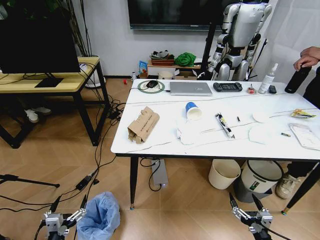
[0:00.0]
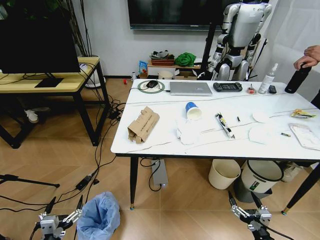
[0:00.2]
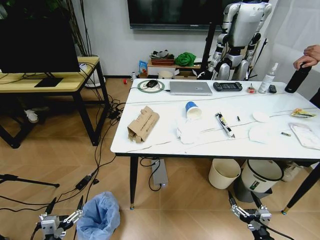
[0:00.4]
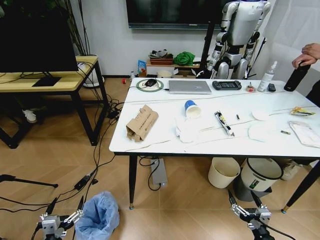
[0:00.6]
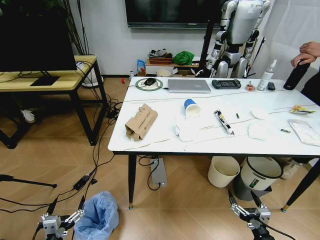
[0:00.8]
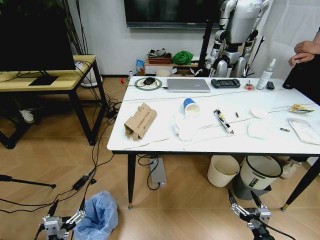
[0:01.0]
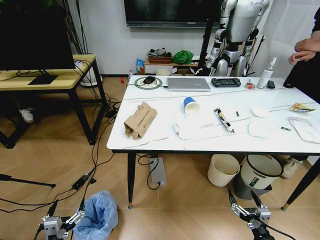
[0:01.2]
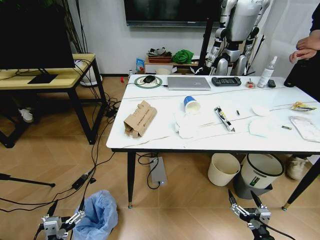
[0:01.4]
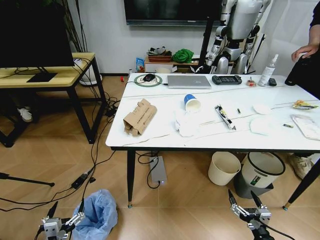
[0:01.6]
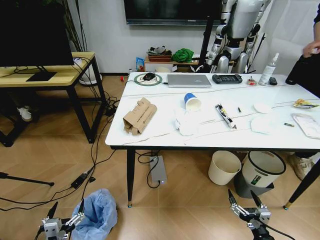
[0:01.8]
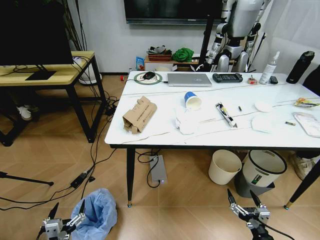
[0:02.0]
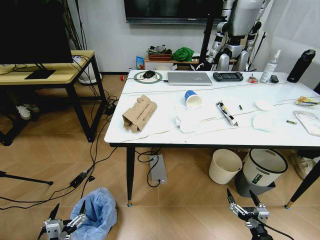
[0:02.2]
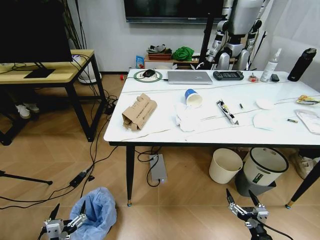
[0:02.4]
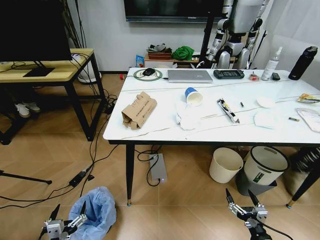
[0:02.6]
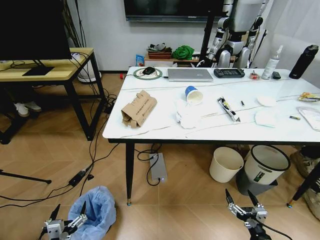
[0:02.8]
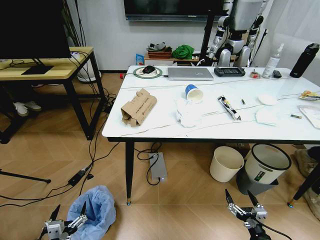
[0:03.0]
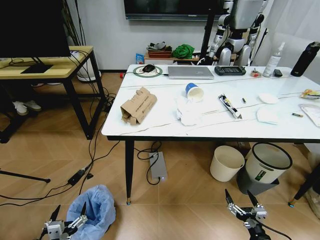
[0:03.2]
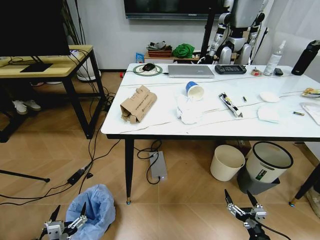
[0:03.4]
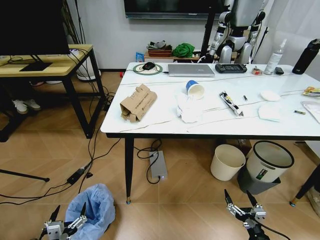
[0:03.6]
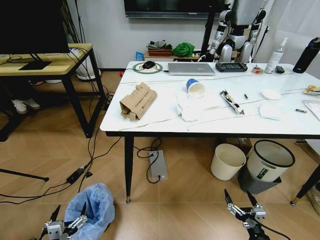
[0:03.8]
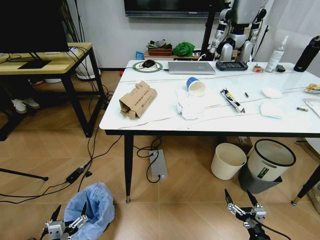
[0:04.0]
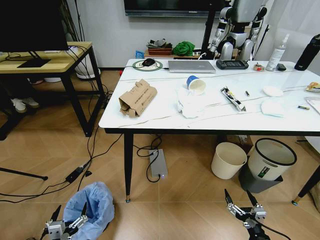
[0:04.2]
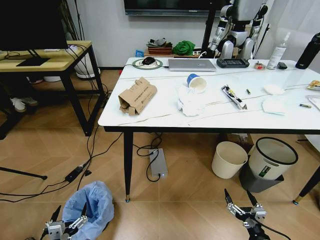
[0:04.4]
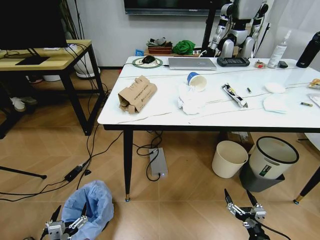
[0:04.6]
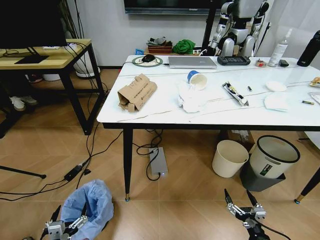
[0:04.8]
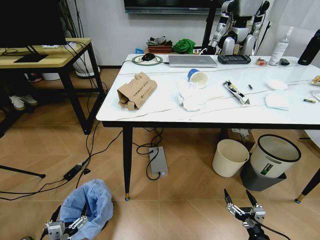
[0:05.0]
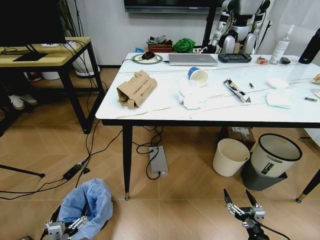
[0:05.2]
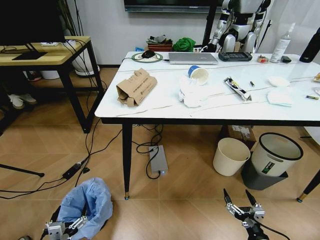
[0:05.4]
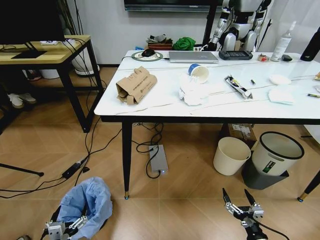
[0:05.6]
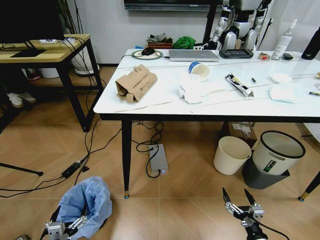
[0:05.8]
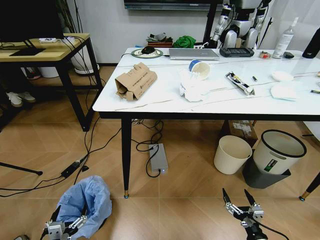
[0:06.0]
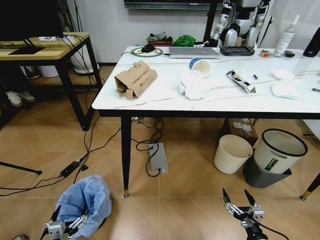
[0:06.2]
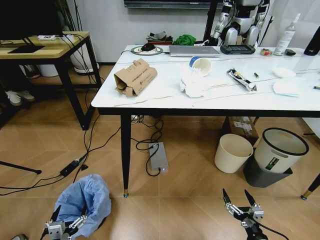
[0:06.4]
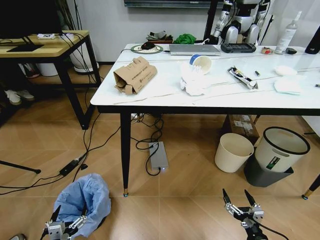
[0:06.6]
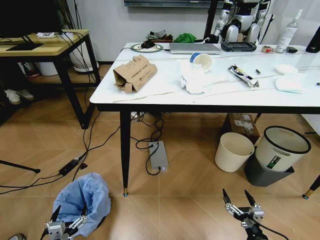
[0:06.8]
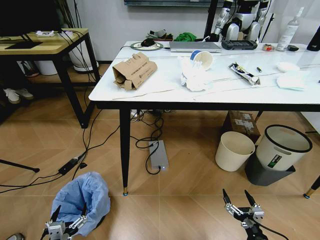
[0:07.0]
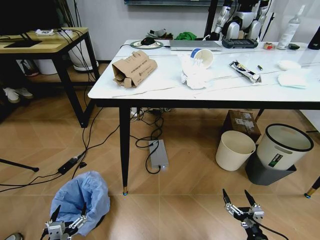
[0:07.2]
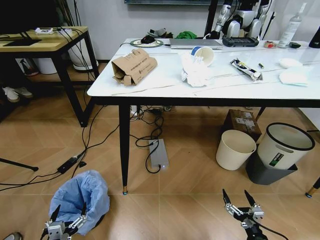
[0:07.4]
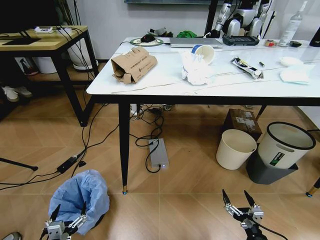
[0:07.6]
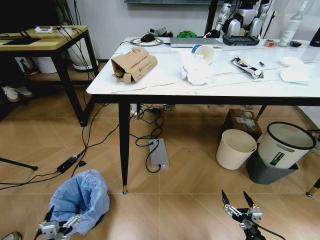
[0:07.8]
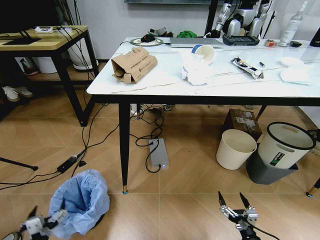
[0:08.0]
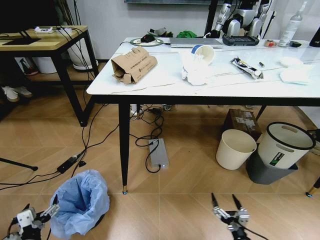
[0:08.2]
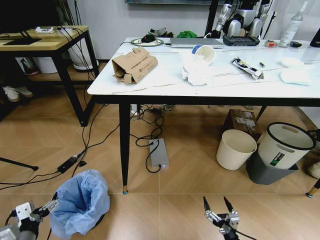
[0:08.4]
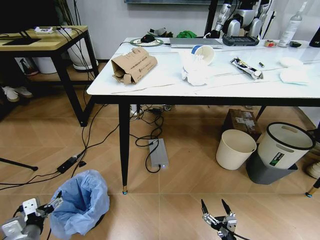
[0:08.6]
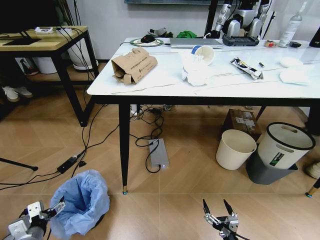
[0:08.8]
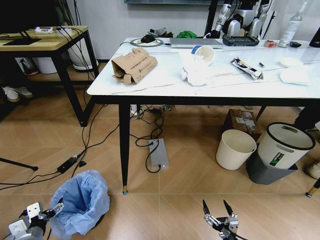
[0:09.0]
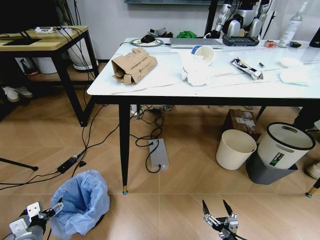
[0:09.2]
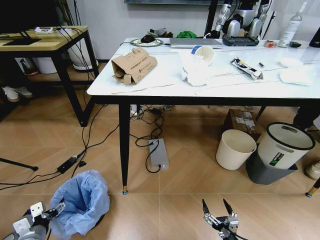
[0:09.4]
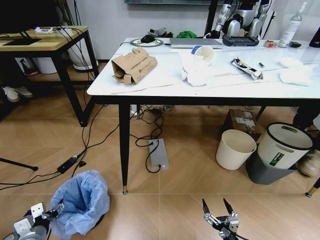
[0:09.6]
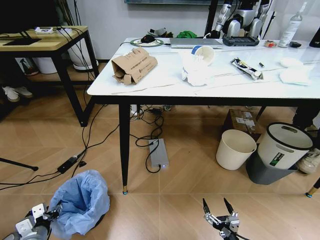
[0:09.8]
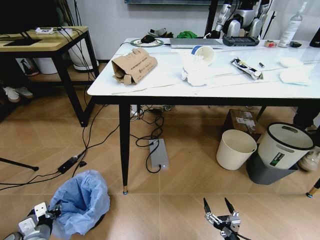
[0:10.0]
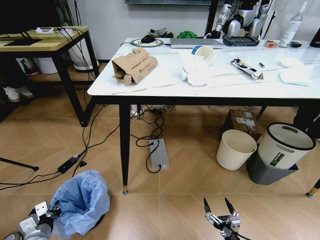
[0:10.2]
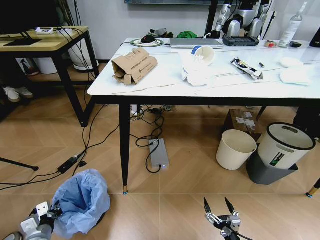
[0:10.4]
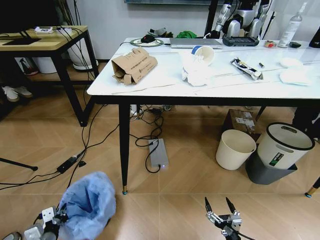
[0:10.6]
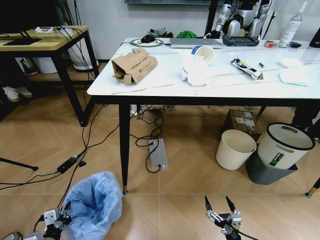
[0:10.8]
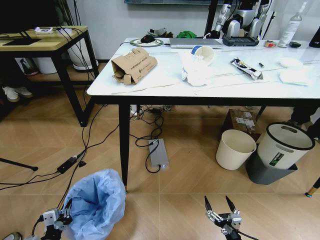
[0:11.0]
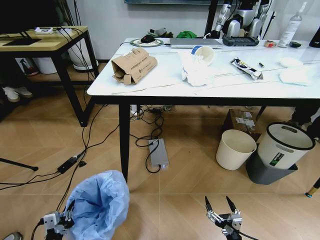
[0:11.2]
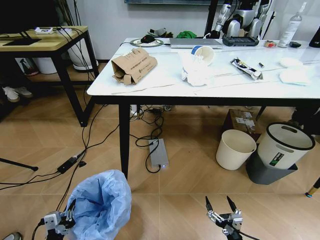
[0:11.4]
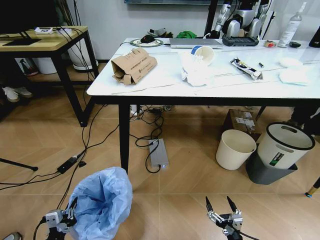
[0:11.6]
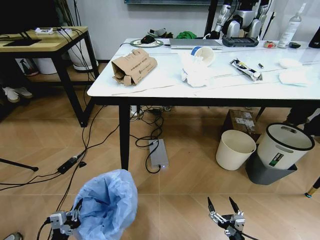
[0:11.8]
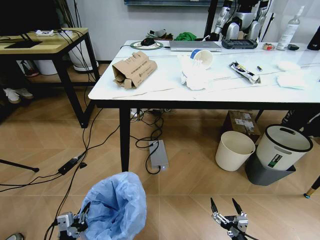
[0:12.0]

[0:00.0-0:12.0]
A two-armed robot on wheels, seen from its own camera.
Task of the whole recording: Pick up the trash bin and place the trash from the table into it.
0:07.6 to 0:09.0: The right gripper moves to the left and downward, approximately 10 cm; the left gripper is displaced forward and to the left by approximately 15 cm.
0:09.0 to 0:10.4: The left gripper closes its fingers.
0:10.4 to 0:12.0: The left gripper is displaced to the right, backward and upward by approximately 15 cm.

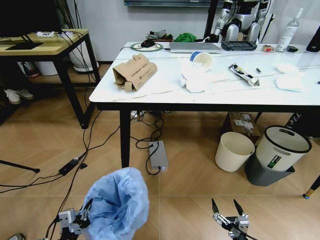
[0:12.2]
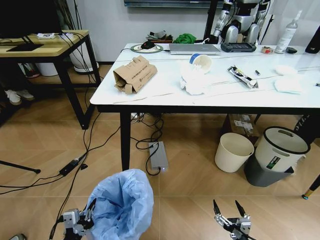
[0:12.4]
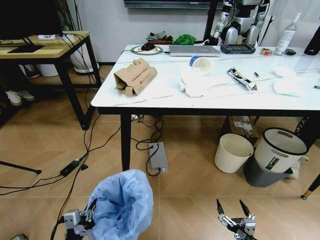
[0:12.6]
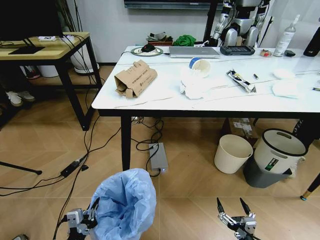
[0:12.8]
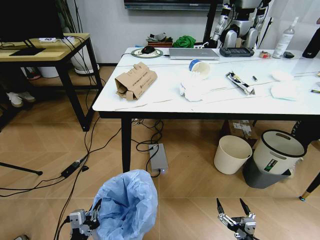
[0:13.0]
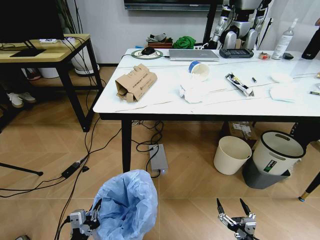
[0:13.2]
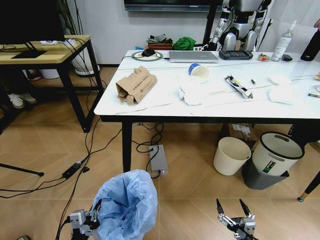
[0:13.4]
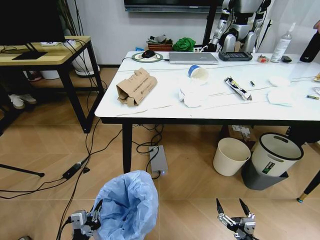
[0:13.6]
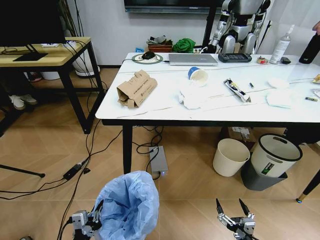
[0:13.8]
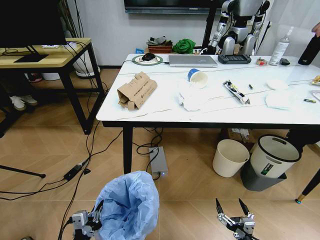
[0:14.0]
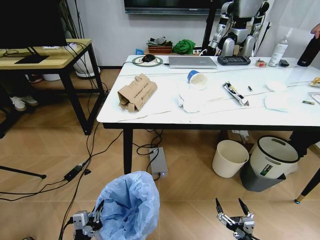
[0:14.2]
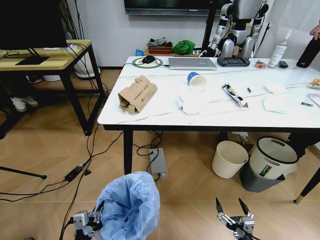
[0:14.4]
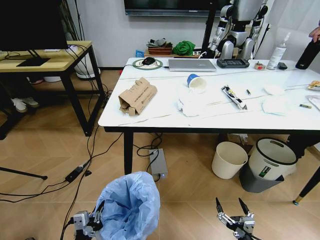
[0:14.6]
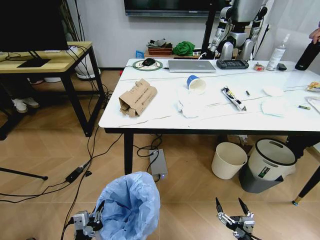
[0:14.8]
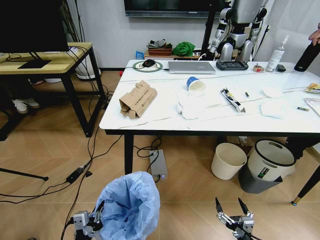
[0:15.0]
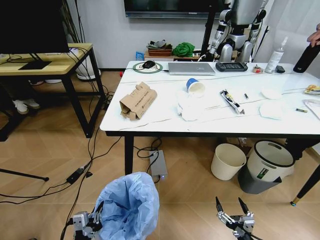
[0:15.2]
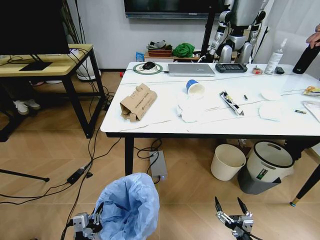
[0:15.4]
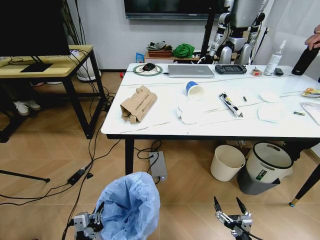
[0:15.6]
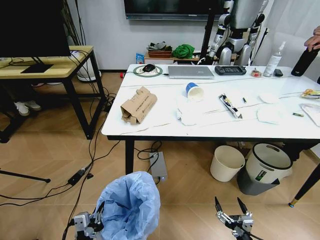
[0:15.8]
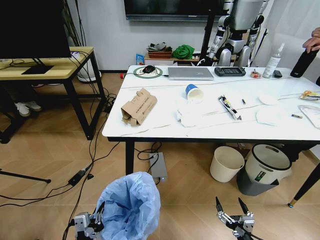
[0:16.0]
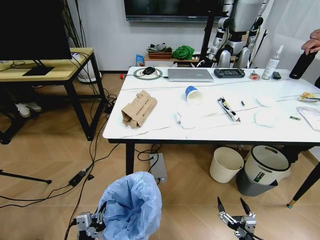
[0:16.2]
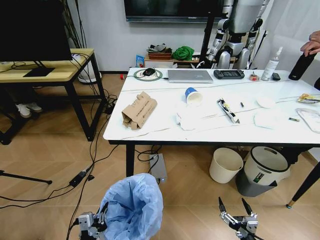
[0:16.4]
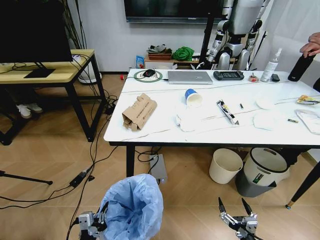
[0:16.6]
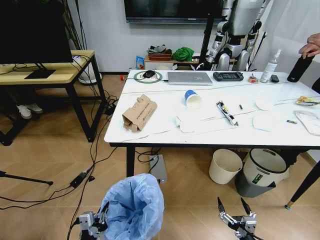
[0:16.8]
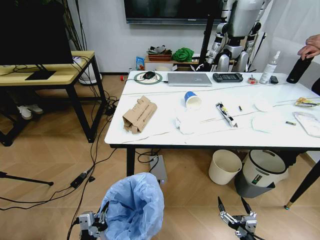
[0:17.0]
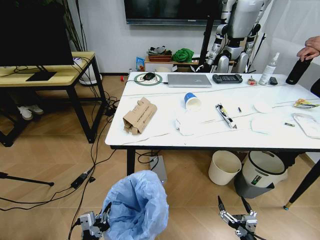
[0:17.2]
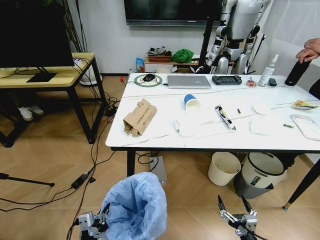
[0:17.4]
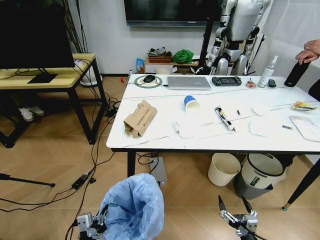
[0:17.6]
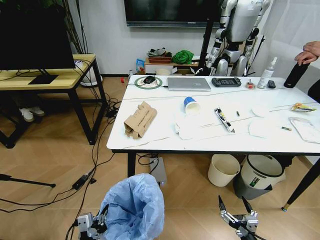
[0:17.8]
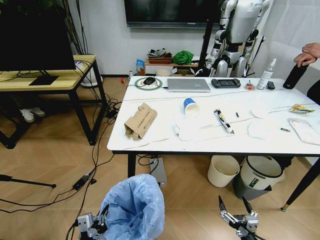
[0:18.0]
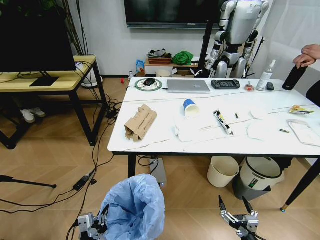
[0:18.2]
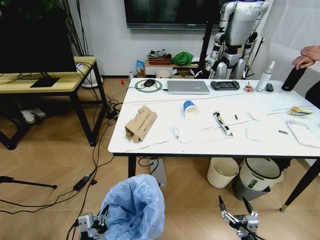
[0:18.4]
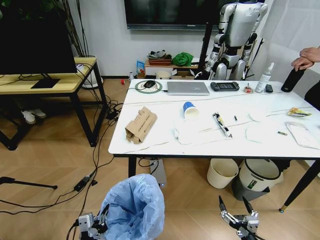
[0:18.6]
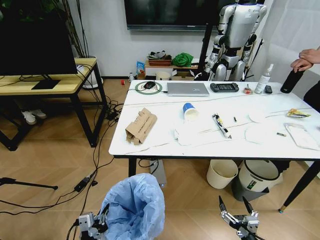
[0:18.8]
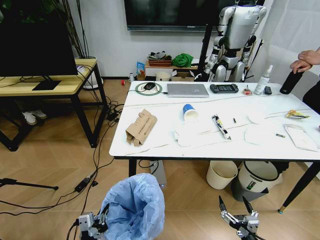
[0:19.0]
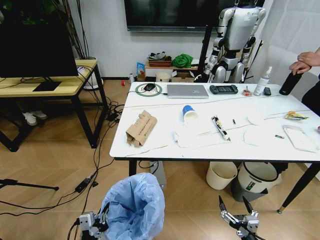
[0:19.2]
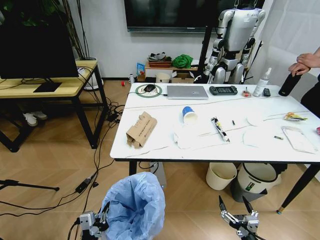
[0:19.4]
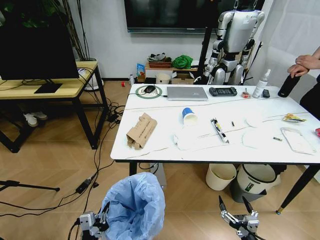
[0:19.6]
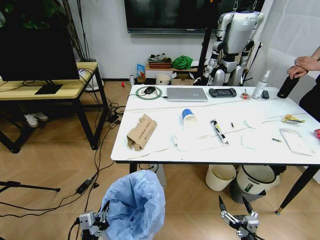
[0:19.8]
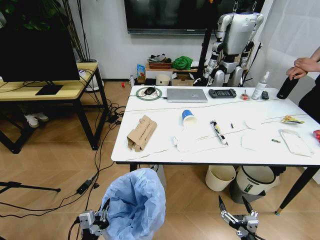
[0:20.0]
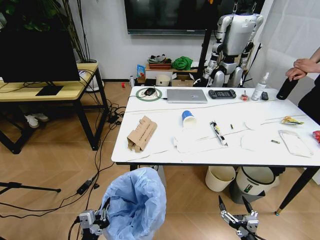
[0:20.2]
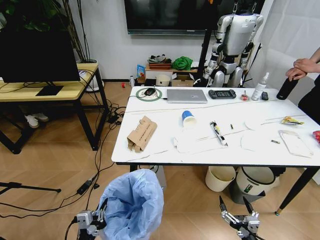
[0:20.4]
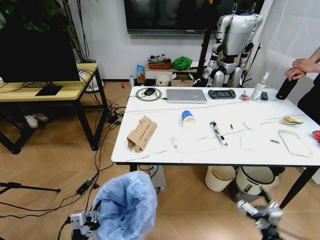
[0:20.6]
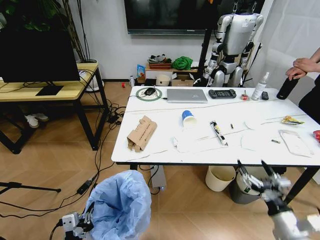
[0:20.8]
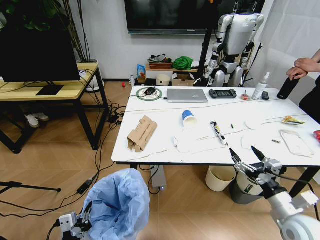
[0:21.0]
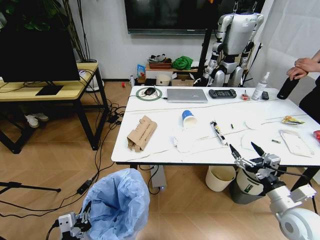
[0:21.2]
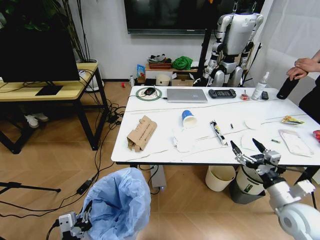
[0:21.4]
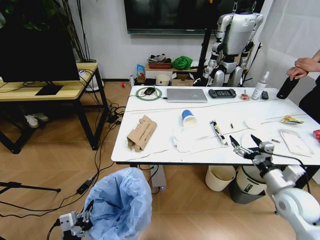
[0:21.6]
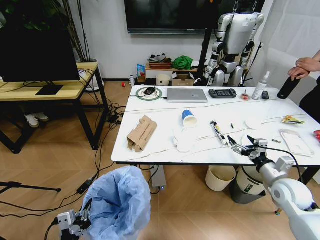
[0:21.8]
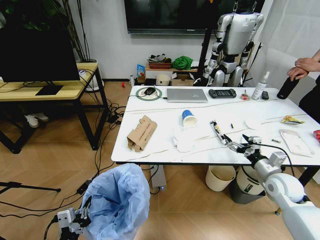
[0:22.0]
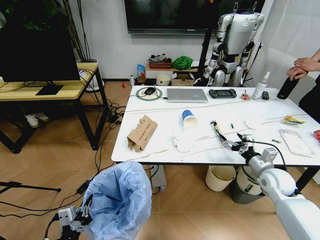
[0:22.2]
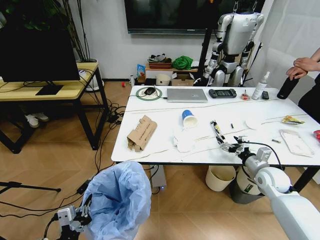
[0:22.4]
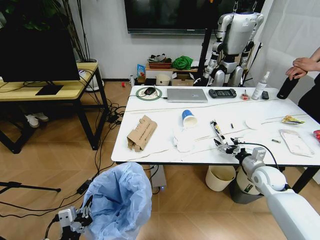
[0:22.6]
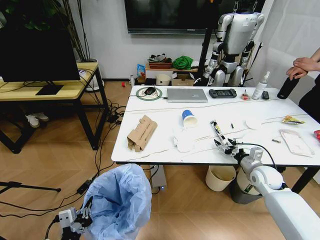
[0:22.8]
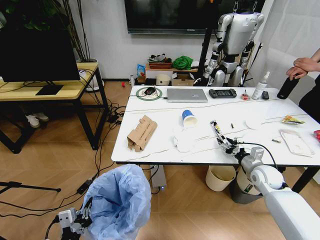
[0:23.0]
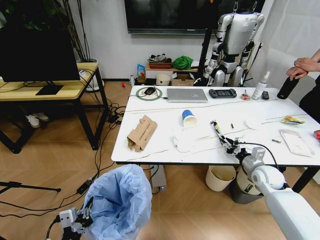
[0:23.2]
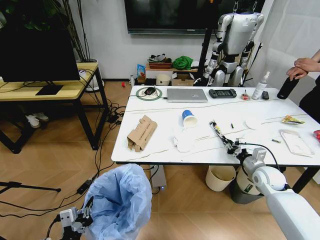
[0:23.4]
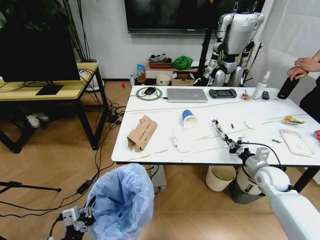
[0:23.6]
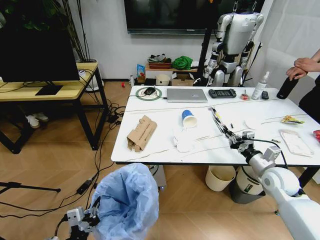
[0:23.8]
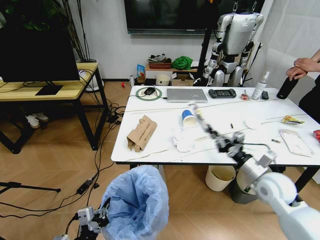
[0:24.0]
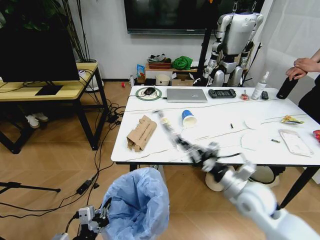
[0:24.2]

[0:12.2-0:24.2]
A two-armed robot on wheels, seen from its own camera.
Task of the whole recording: Pick up the trash bin and place the trash from the table into it.
0:19.8 to 0:21.2: The right gripper goes about 20 cm upward, forward and to the right.
0:21.2 to 0:22.6: The right gripper shifts some 20 cm forward.
0:22.6 to 0:24.2: The right gripper is displaced to the left, backward and upward by about 20 cm, and closes up.
